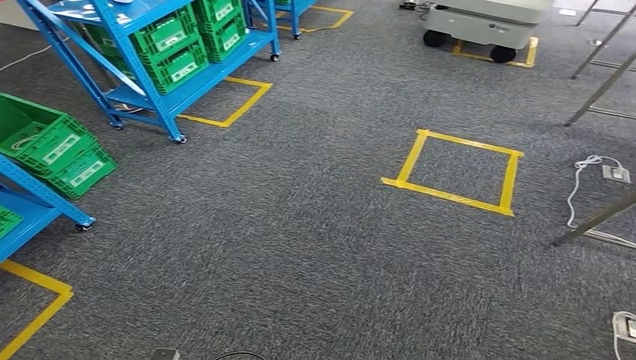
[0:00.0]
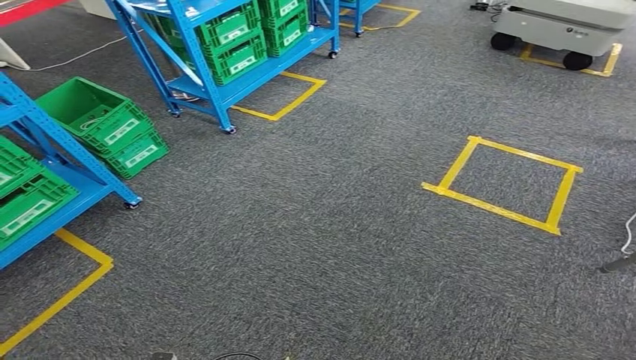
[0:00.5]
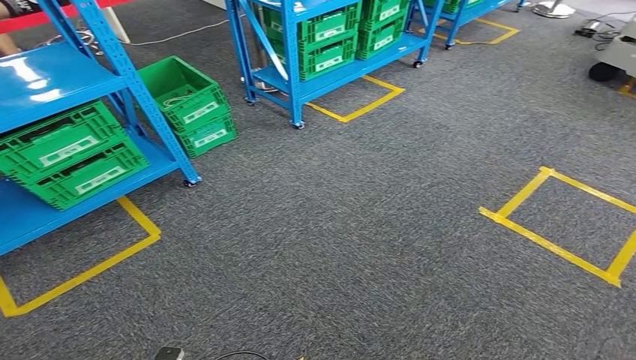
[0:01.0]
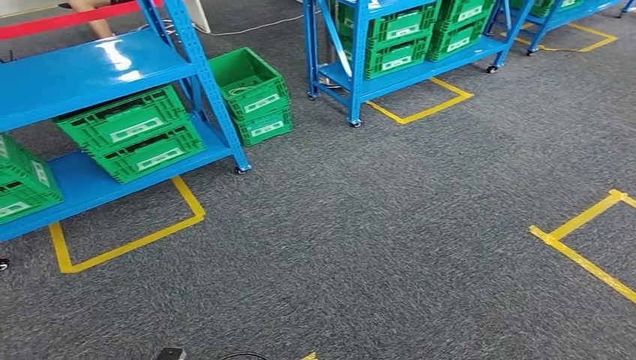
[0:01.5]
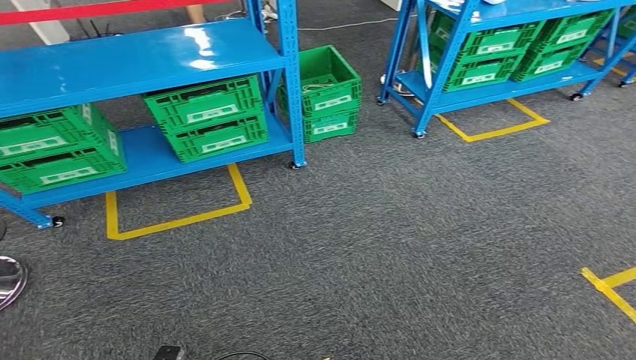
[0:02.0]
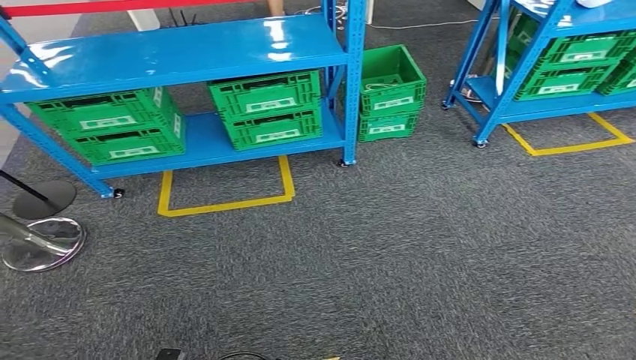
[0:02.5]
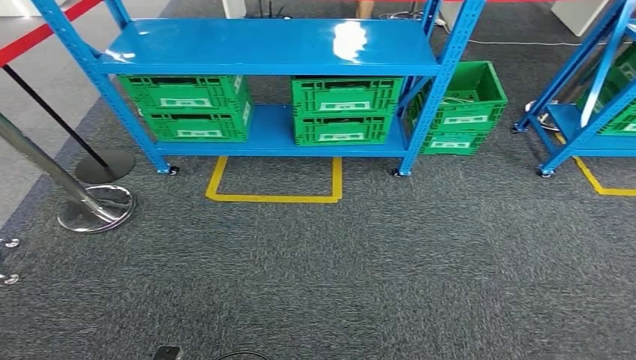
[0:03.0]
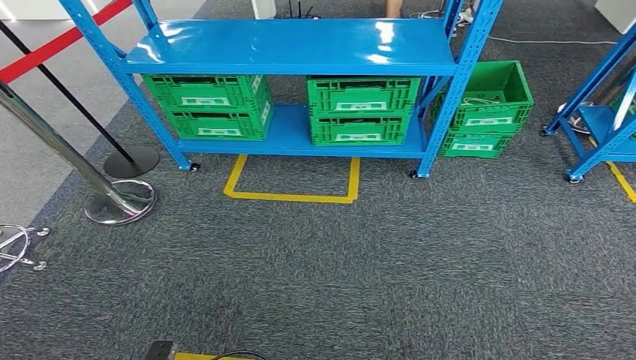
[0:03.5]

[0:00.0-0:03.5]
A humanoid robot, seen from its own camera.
Step, 0:00.0 to 0:03.5: Move to the initial position of the workbench.
